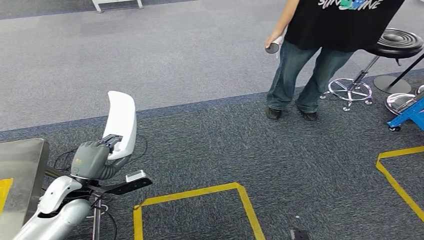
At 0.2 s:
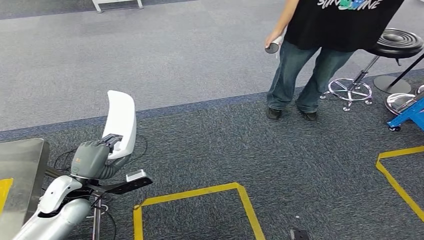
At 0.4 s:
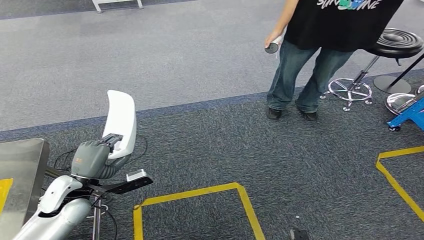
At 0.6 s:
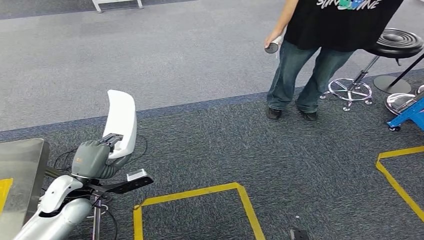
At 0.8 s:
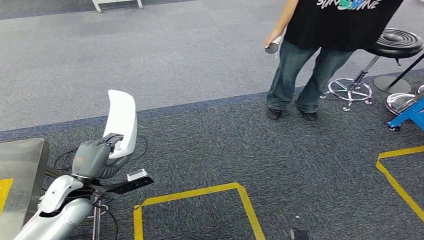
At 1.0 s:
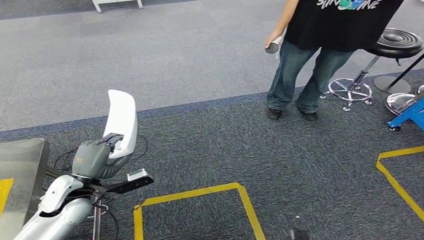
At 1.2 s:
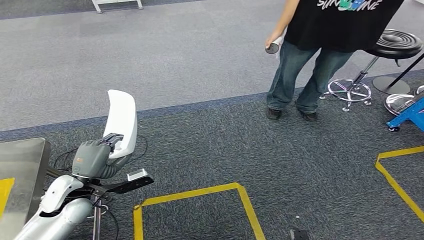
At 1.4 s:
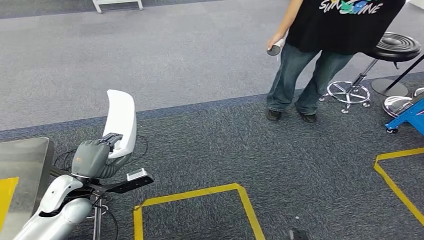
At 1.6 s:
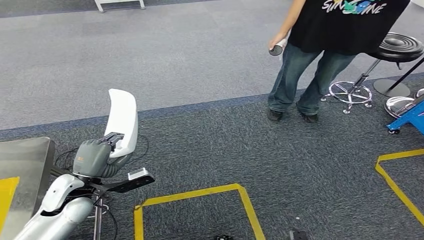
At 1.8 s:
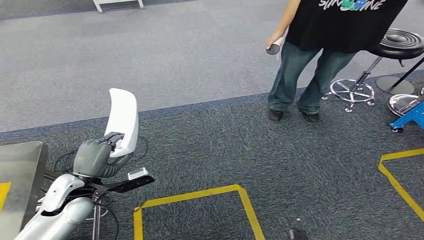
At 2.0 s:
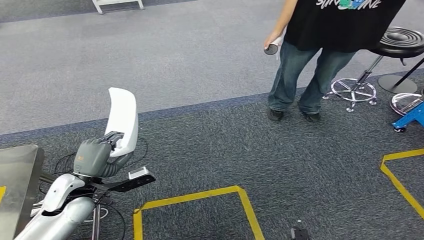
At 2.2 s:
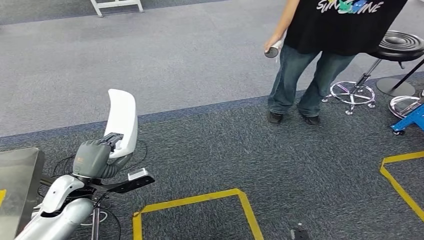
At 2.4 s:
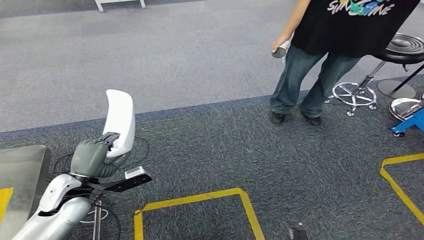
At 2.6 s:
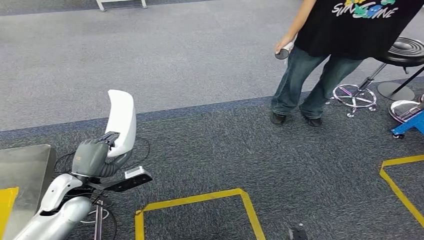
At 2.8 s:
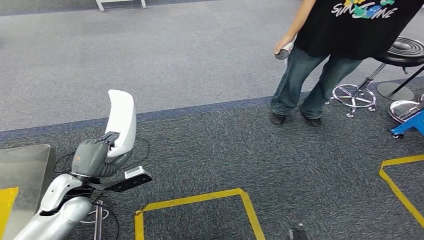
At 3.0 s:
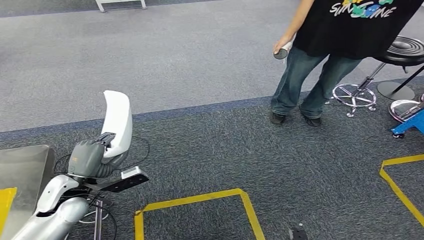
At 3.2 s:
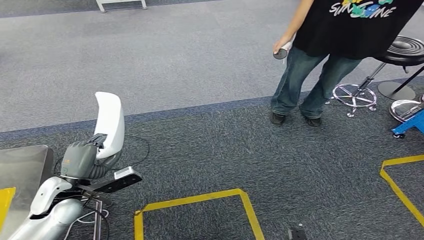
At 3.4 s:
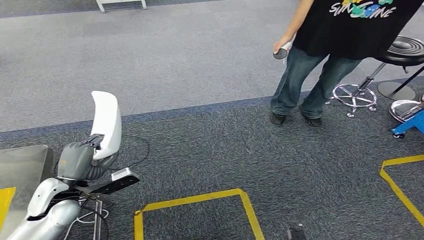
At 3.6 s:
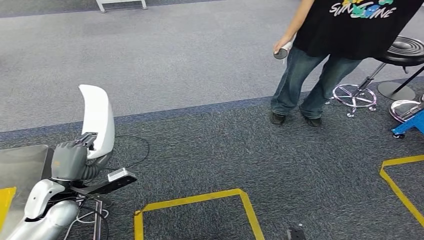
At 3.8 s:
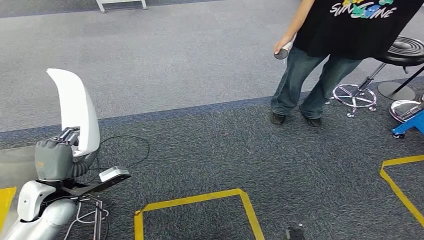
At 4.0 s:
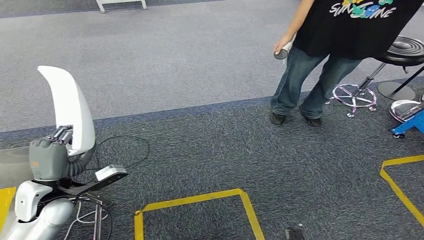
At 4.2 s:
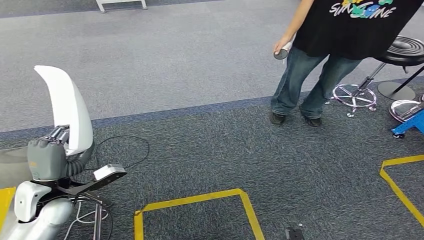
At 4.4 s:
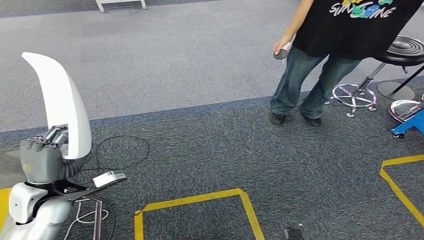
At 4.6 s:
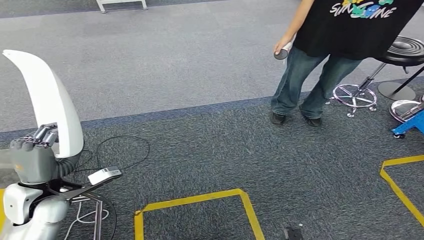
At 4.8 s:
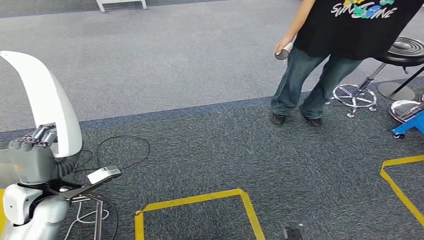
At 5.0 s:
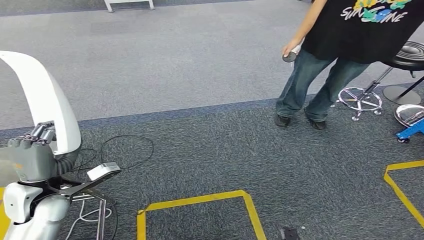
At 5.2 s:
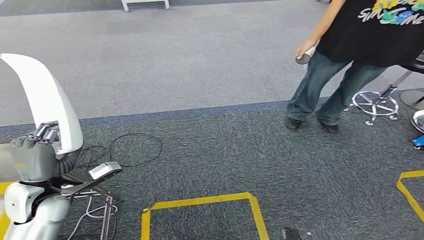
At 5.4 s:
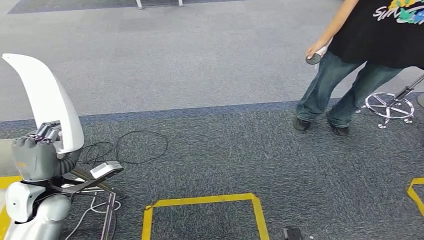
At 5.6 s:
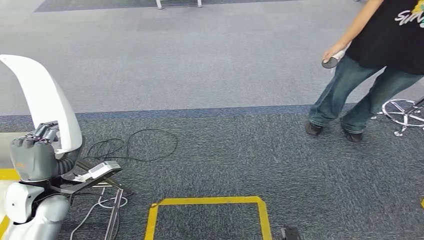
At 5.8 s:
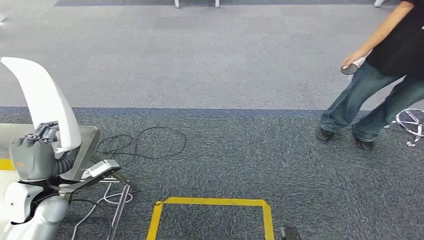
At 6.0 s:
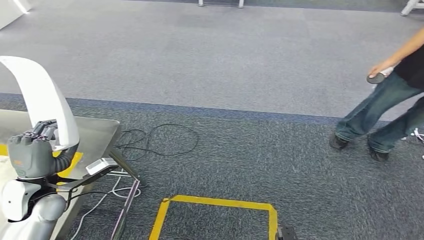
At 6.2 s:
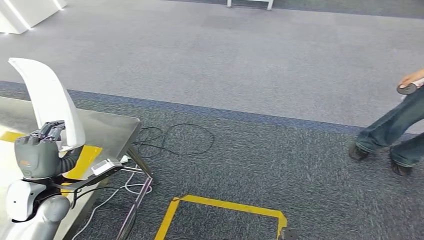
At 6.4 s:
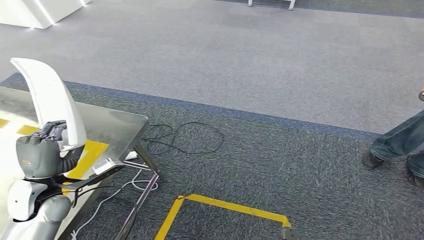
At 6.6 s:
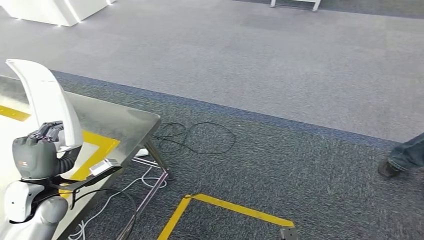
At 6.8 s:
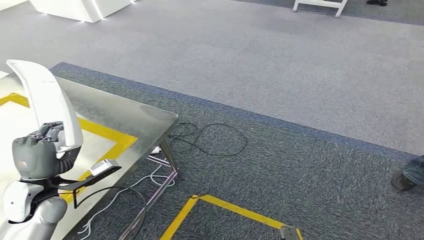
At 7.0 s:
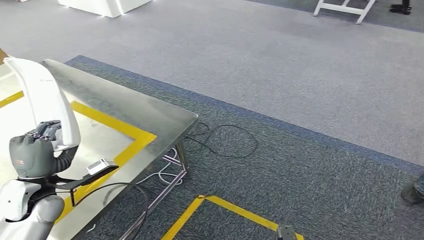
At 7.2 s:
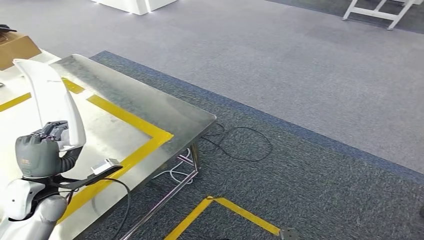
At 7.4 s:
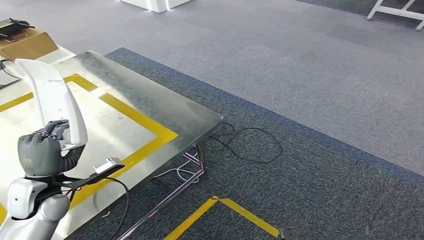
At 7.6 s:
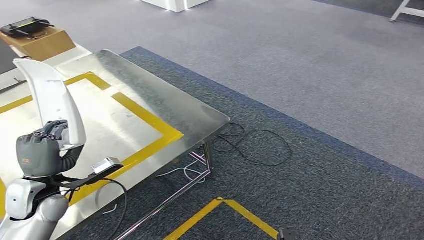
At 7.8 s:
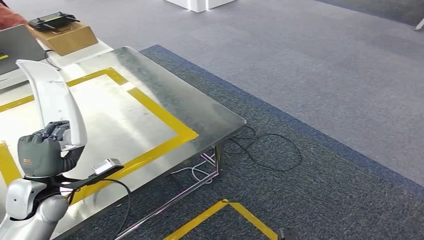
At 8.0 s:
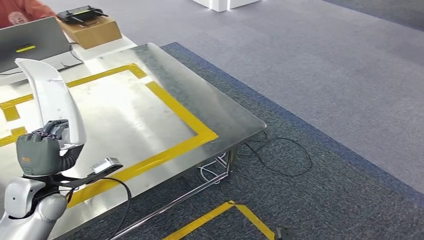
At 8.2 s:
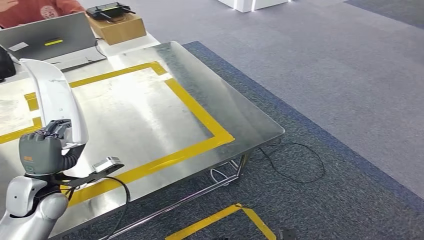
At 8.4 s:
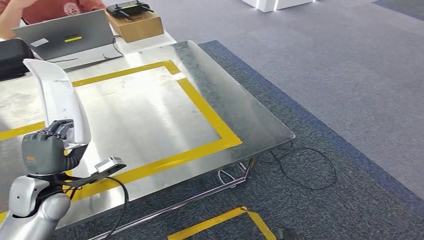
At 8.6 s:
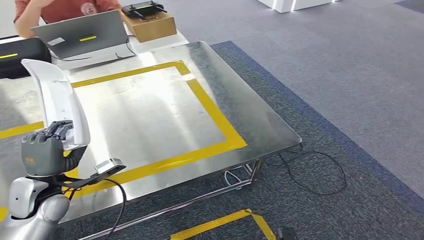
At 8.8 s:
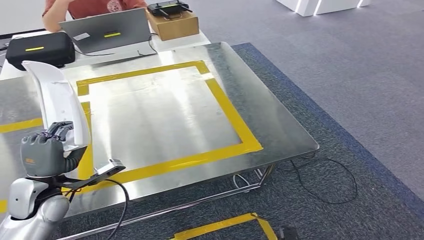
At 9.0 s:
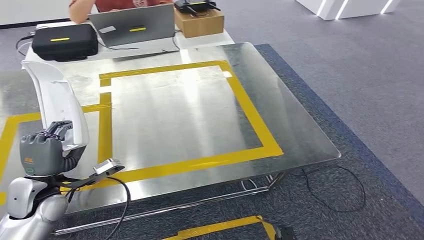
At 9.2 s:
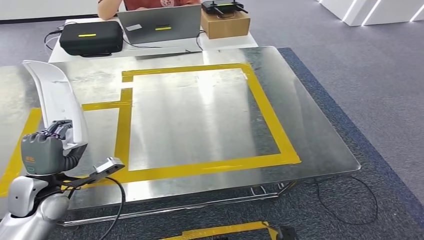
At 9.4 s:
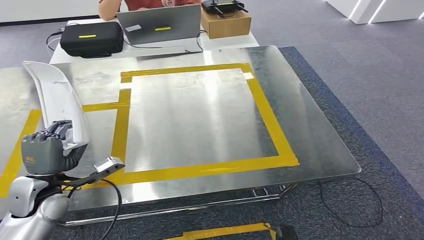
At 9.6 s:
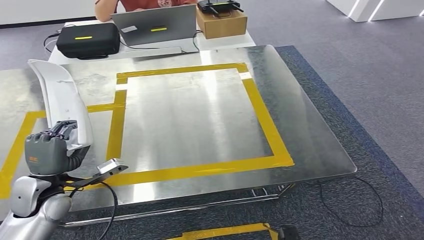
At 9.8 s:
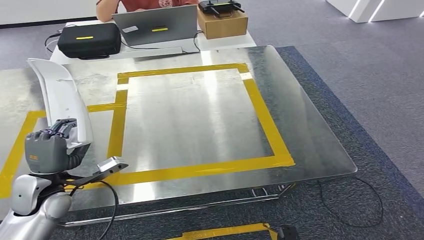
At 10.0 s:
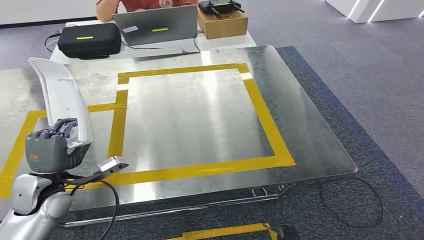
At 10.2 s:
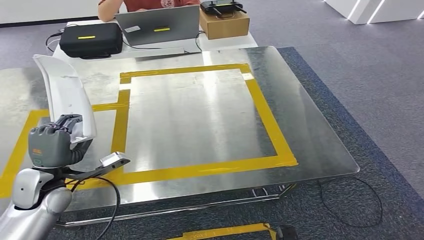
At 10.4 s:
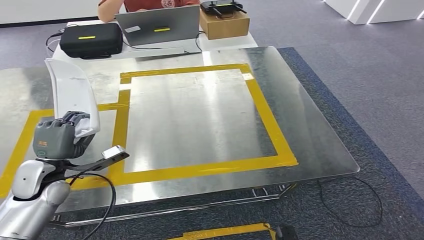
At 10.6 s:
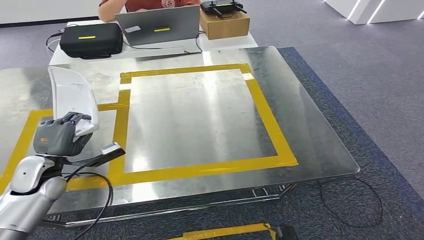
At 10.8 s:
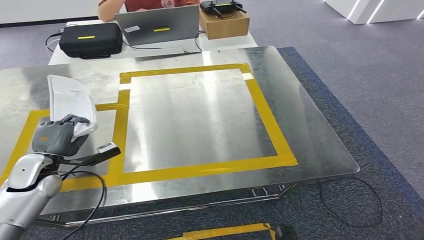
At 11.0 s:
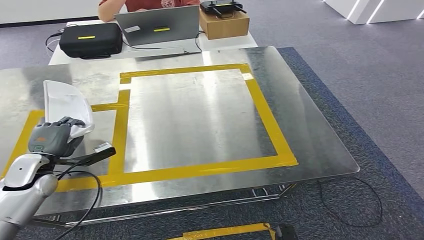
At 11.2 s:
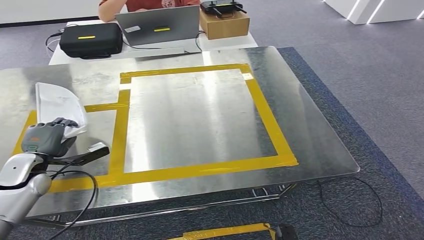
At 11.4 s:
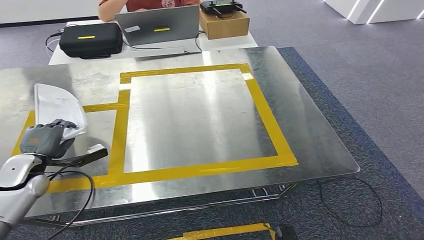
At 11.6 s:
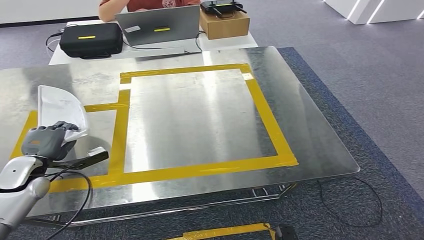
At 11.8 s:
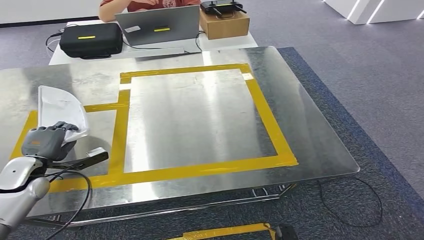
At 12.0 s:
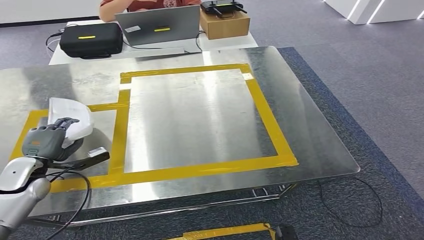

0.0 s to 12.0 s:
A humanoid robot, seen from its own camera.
Step, 0.0 to 5.0 s: Move the small component to the workbench.
0.0 to 3.0 s: Neither hand changes place.
3.0 to 4.4 s: The left hand changes place by some 5 cm.
10.4 to 12.0 s: The left hand travels to the left by roughly 5 cm.

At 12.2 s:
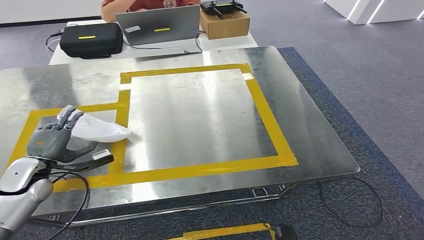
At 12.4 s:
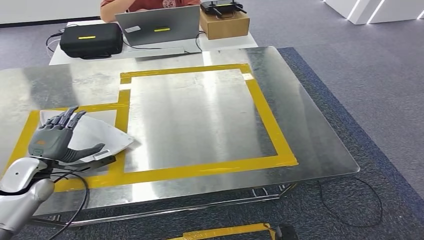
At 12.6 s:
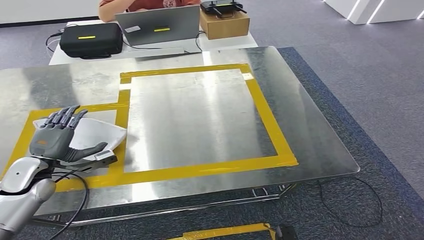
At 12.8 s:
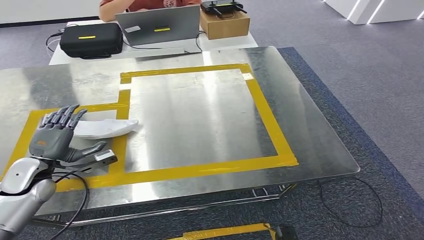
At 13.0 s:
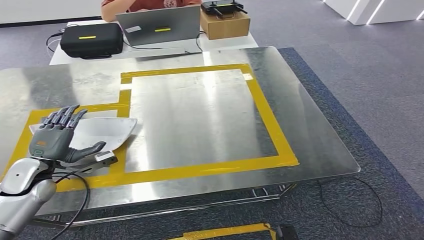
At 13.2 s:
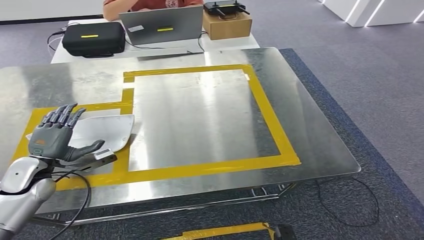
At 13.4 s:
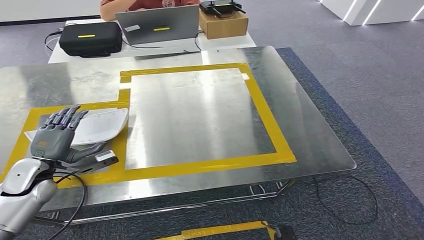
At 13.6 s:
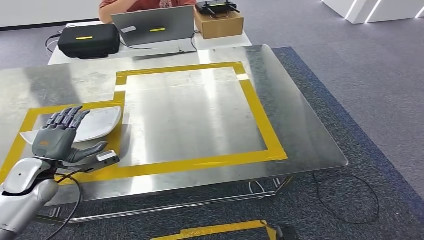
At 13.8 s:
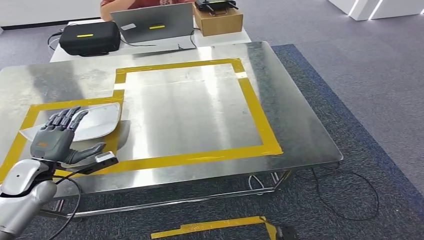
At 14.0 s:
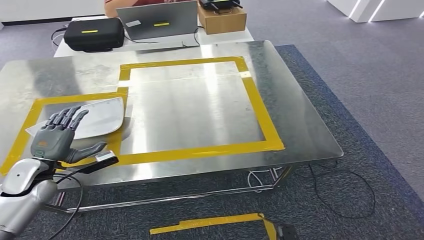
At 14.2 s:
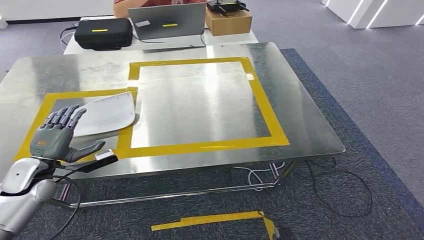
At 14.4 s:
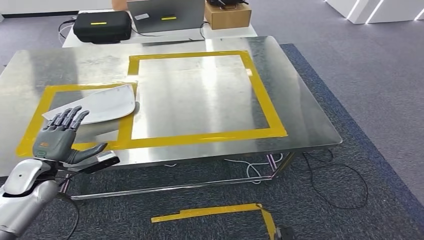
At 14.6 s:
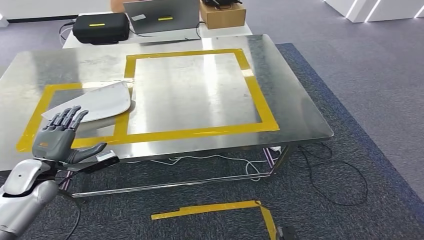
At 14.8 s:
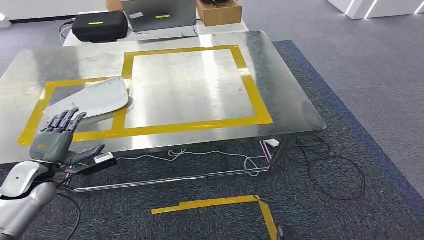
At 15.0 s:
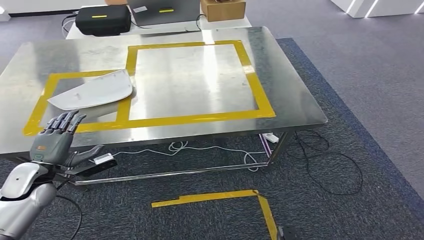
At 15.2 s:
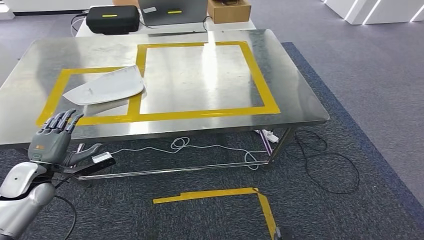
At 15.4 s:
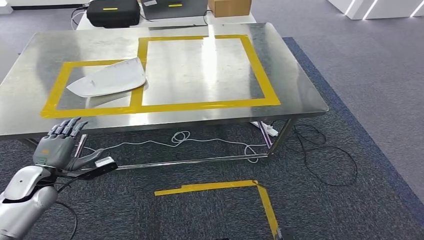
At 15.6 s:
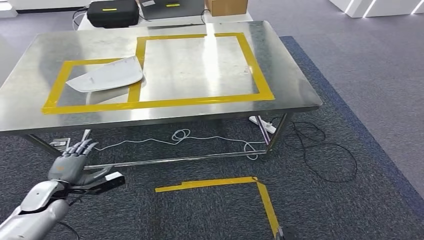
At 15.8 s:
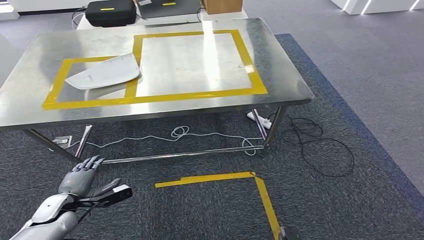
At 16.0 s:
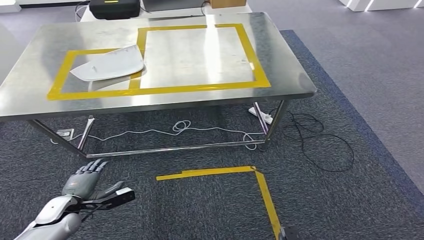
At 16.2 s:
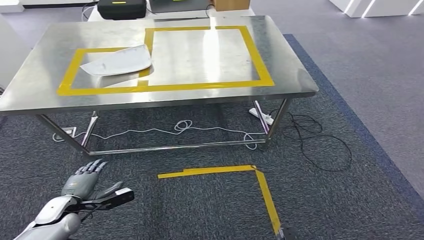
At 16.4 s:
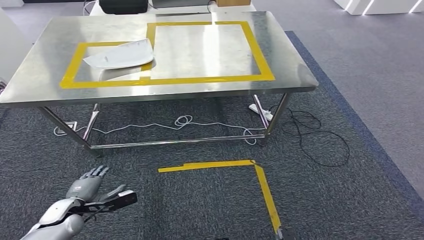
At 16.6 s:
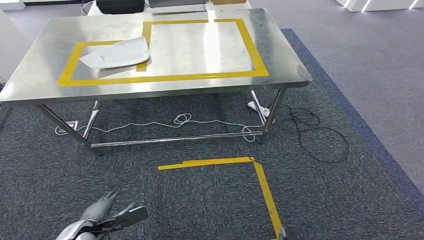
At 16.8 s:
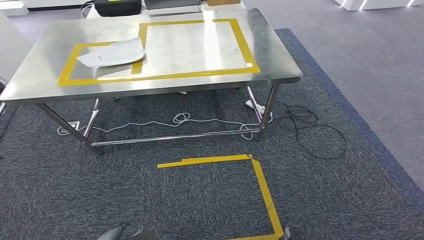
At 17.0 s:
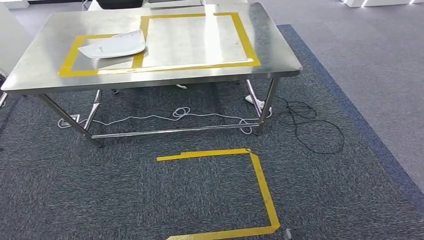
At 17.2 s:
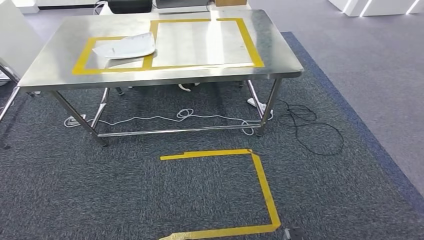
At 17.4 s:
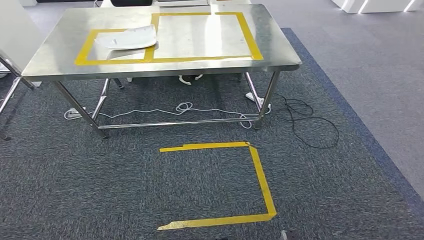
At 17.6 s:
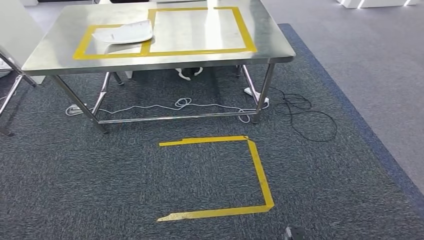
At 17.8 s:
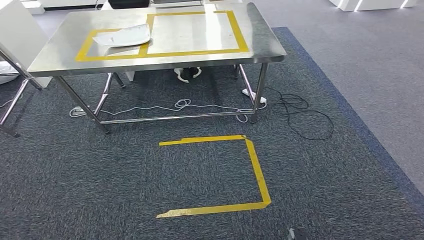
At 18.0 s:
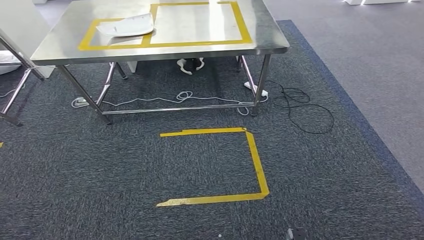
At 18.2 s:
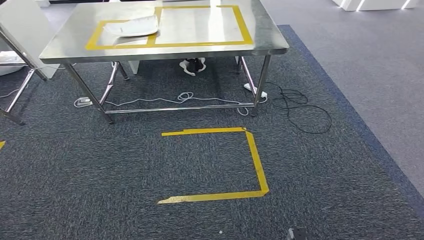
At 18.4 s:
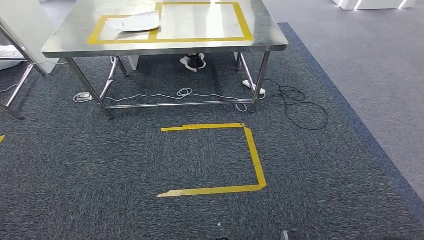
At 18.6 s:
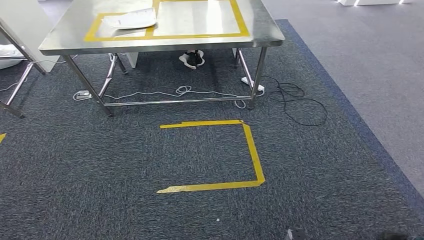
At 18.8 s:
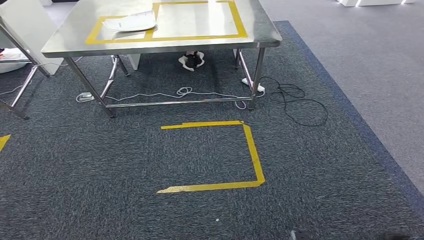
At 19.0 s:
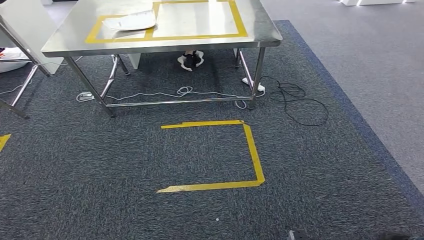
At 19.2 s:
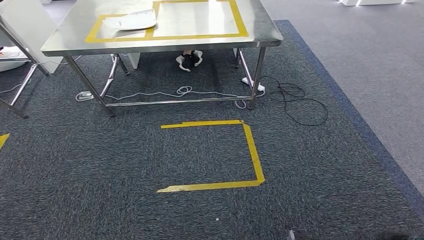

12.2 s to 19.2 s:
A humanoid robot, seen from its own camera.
Step, 12.2 to 17.2 s: Insert the small component into the corresponding slot on the workbench.
12.2 to 13.6 s: There are only small adjustments of the hands.
